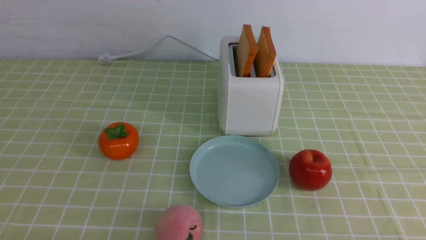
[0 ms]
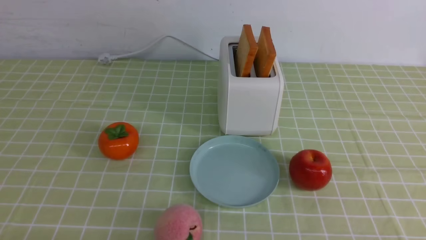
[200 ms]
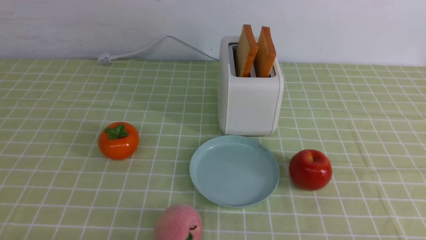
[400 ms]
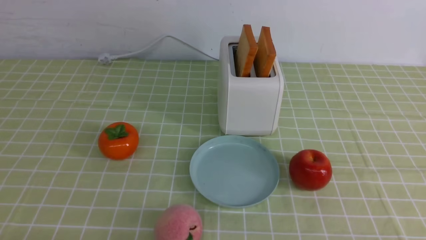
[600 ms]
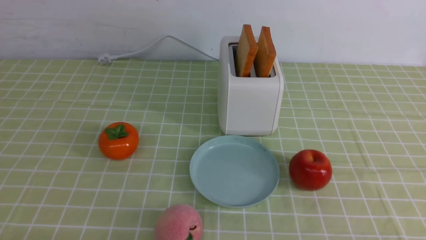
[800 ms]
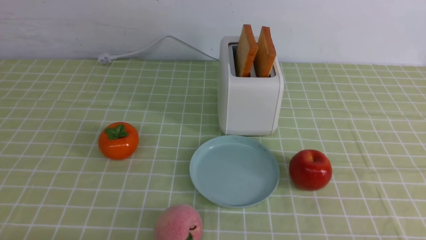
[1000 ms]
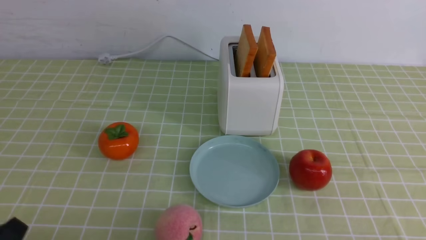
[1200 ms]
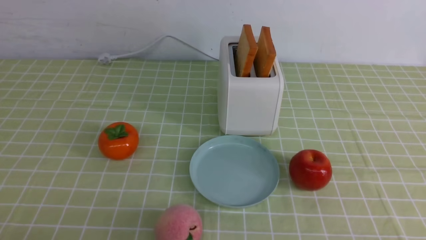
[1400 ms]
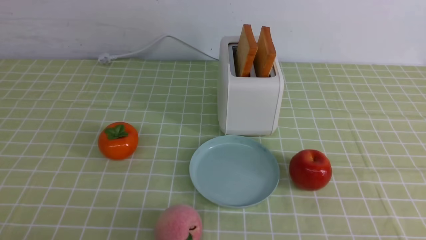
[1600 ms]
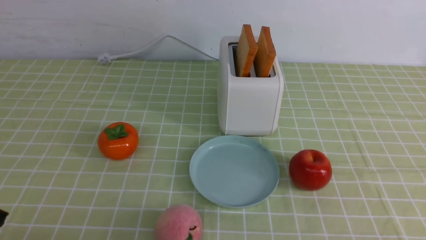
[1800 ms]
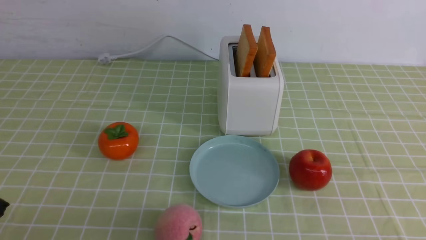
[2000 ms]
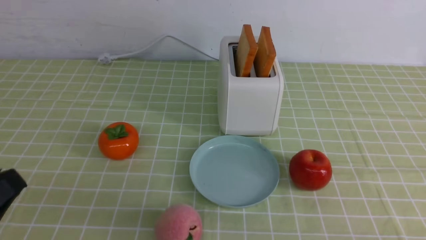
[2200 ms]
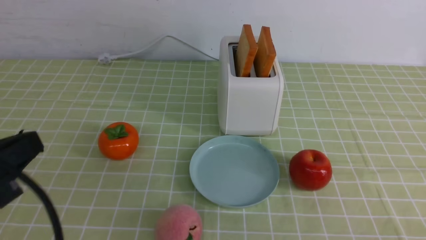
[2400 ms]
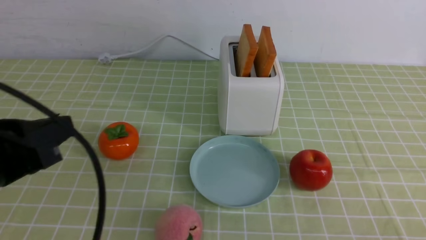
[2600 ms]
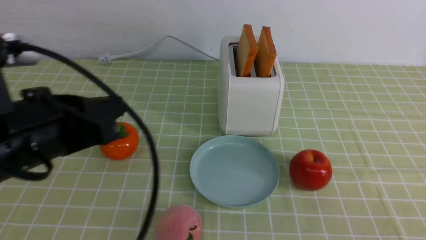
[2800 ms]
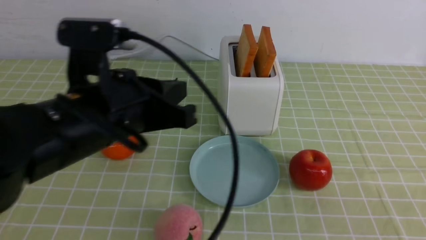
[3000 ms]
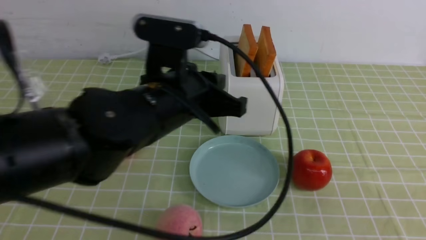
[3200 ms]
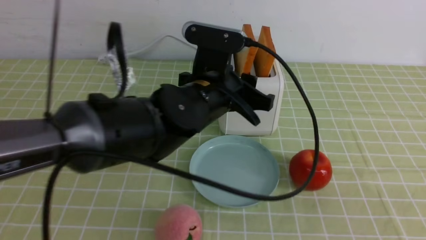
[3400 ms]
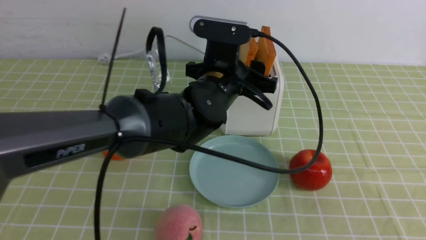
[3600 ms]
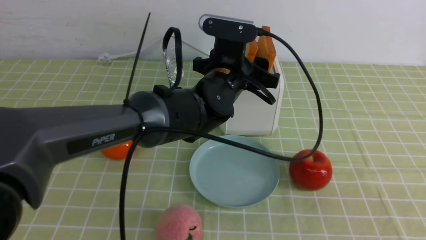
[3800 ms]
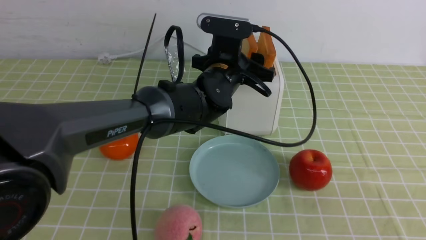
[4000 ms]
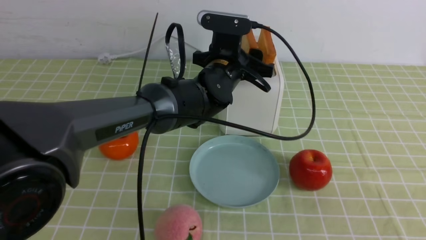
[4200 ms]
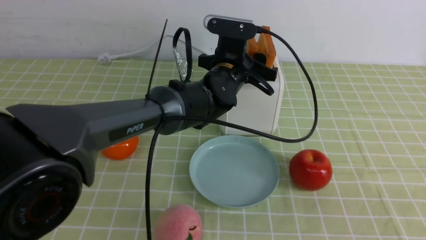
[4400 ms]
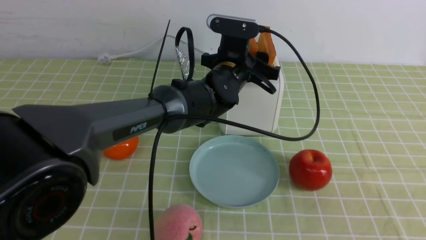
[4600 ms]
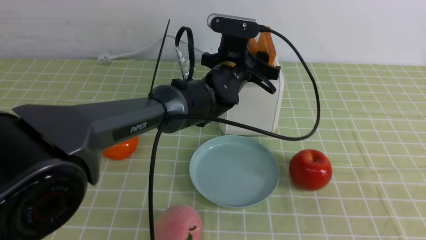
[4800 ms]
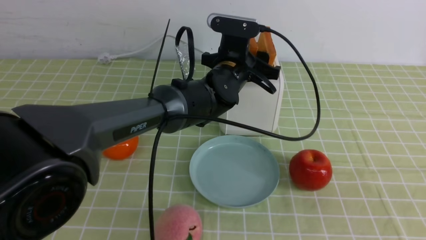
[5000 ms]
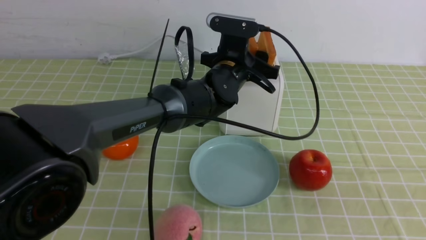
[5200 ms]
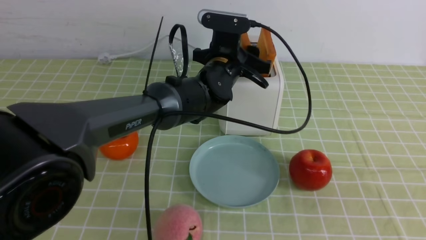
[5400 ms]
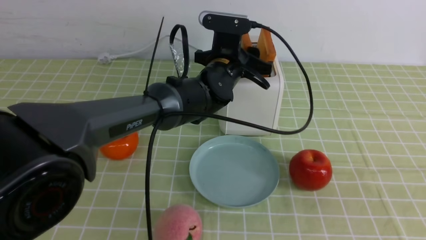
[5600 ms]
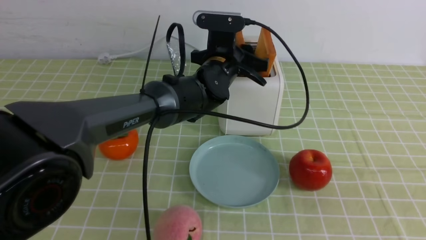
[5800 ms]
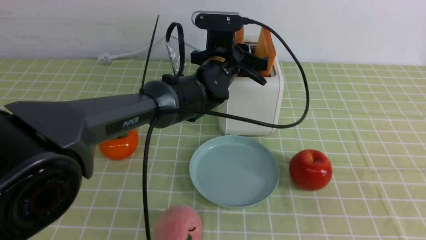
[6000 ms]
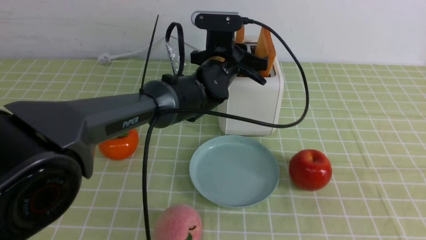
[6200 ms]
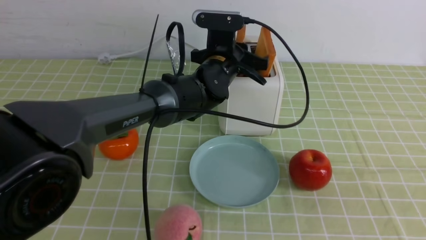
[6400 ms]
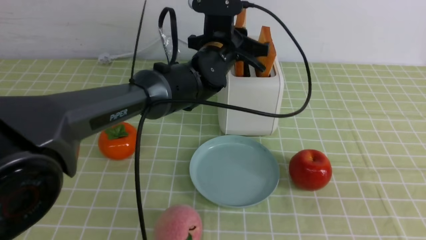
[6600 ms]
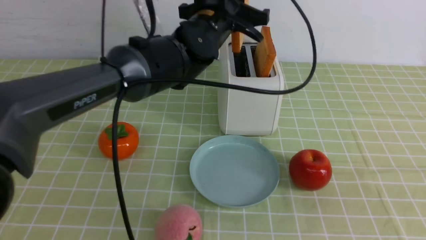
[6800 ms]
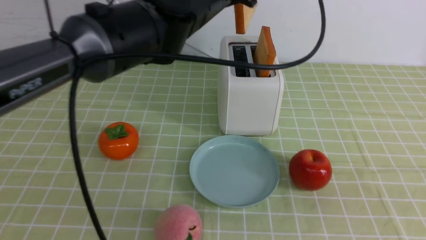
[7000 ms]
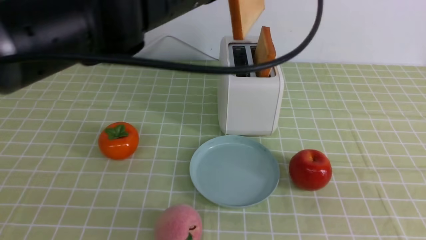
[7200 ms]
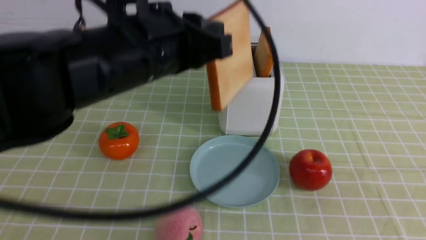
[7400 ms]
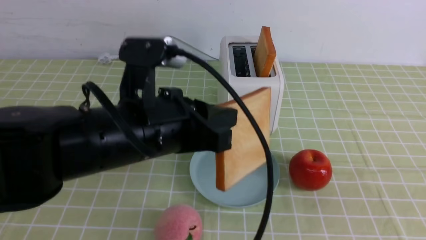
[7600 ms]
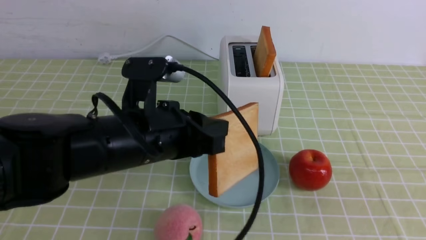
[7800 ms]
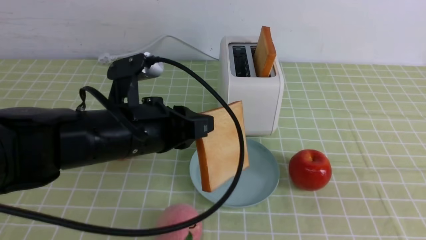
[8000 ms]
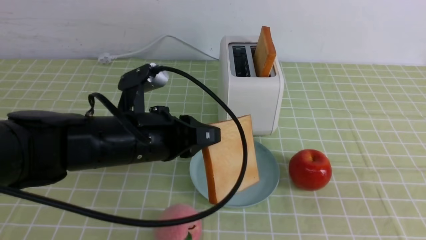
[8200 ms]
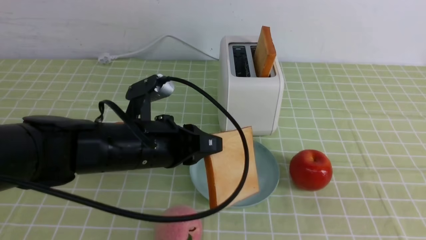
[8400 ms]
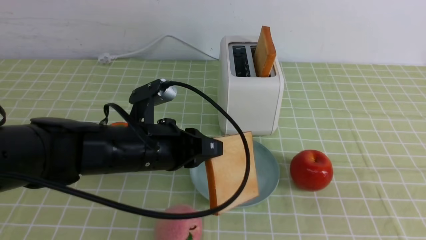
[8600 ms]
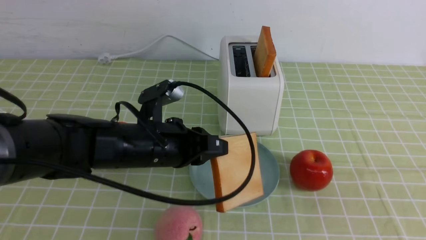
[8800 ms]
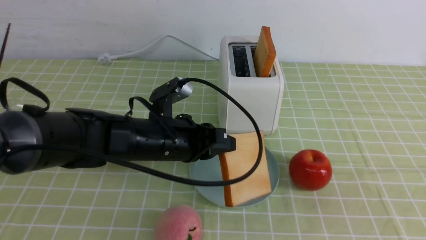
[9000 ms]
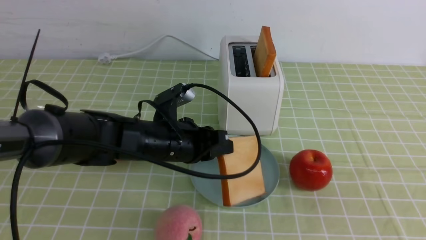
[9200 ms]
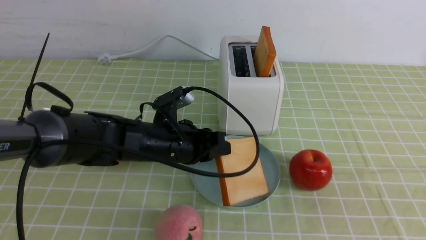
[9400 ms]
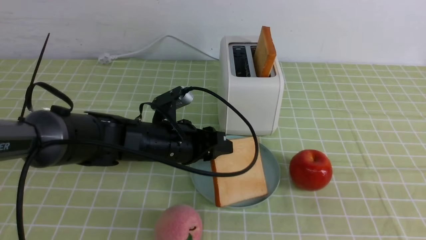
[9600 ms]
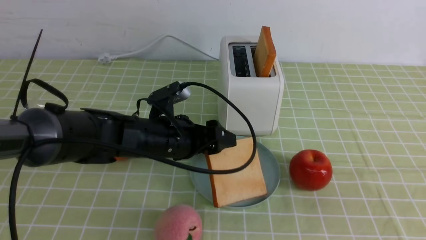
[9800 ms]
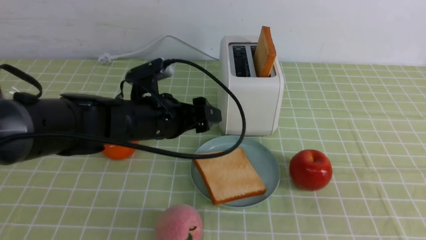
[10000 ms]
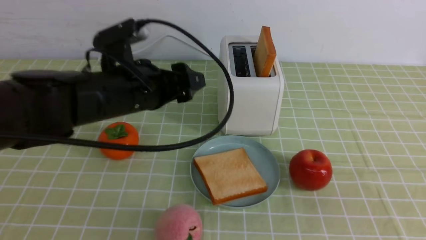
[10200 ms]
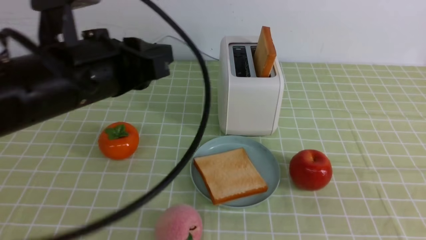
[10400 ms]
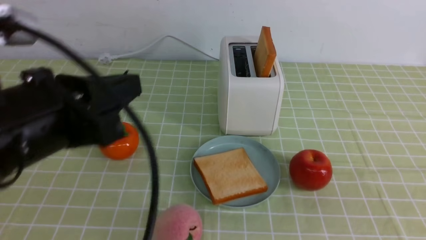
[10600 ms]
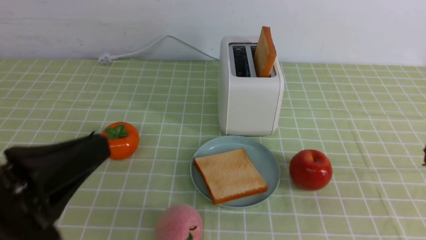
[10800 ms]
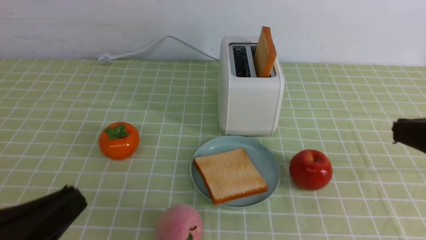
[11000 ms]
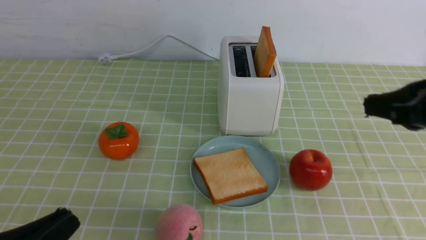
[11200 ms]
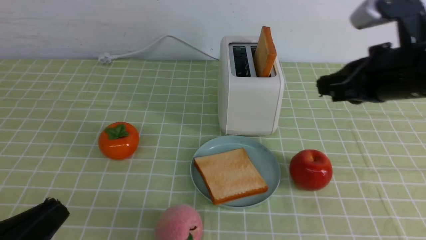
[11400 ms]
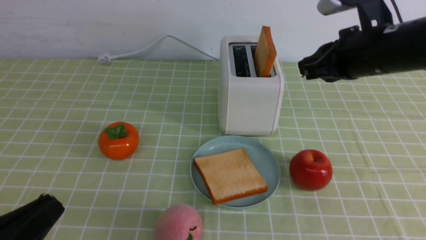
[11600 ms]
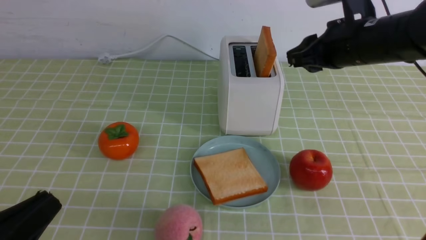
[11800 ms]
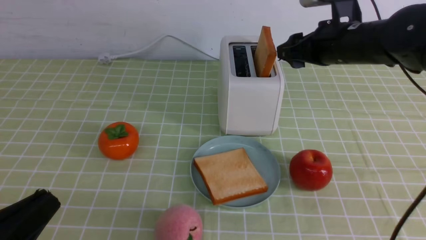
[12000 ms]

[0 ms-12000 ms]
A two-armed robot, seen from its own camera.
Task of the whole recording: take toasted bread from bread machine on green coffee tablecloth place on plate.
Step, 0 ms to 6800 ms: use the left arm to take out a slice of bread.
Step, 7000 ms to 10000 ms: use the left arm to put a slice of bread into the empty plate.
1600 ms to 3000 ms: The right gripper is displaced upward by approximately 10 cm, while the left gripper moves forward, to the right and upward, about 25 cm.
3000 ms to 4400 ms: The left gripper goes roughly 25 cm forward and to the right, and opens.
4400 ms to 6000 ms: The left gripper closes.
6000 ms to 7600 ms: The left gripper travels backward and to the left by about 25 cm.
7600 ms to 9000 ms: The left gripper heads downward and forward, covering some 10 cm.
9000 ms to 10400 ms: The left gripper heads upward, backward and to the left, covering roughly 15 cm, and opens, then closes again.
10400 ms to 12000 ms: The right gripper heads forward, covering roughly 35 cm, and opens up; the left gripper heads backward, downward and to the left, covering some 20 cm.

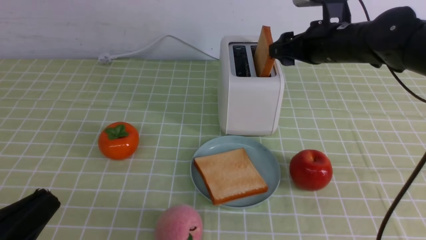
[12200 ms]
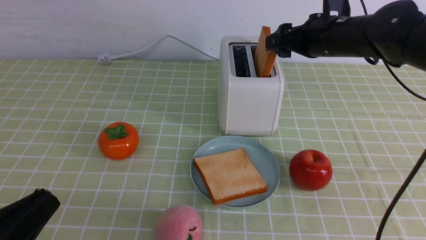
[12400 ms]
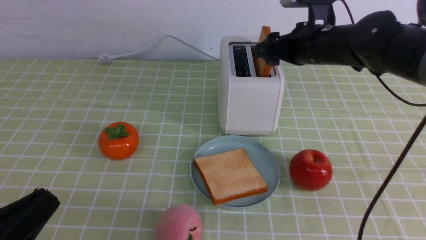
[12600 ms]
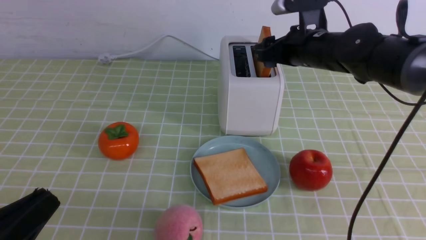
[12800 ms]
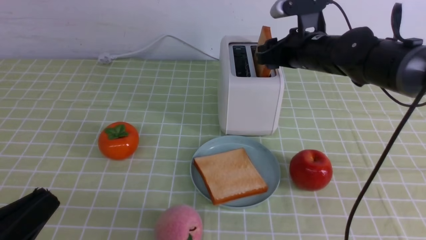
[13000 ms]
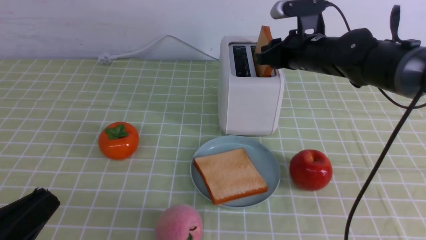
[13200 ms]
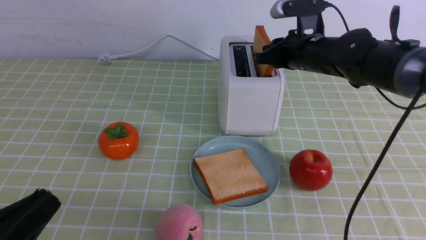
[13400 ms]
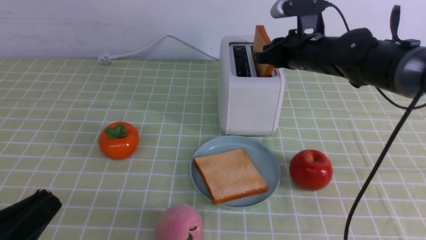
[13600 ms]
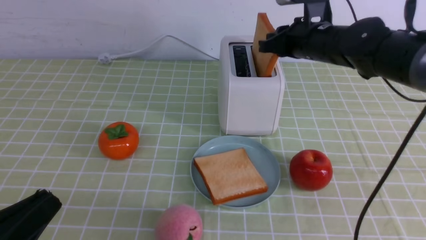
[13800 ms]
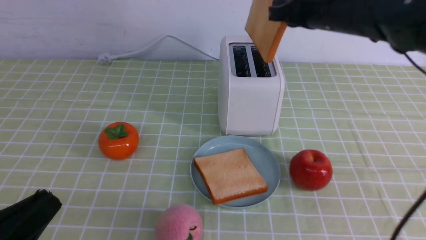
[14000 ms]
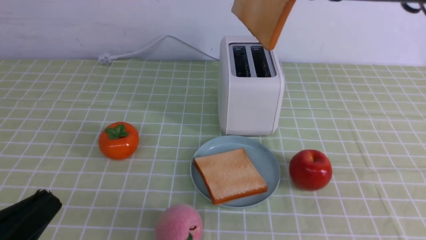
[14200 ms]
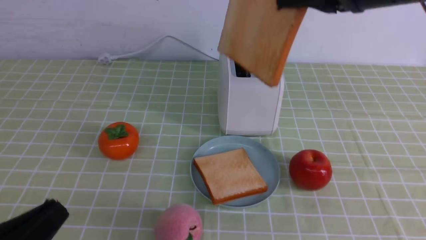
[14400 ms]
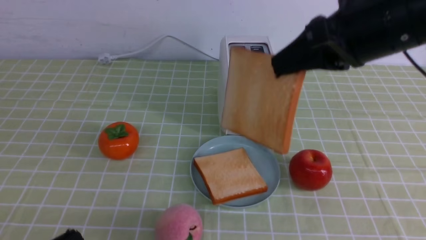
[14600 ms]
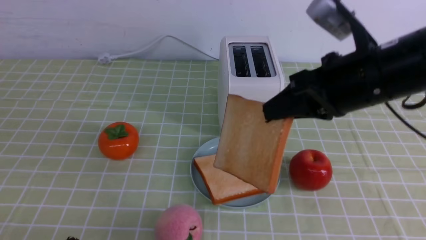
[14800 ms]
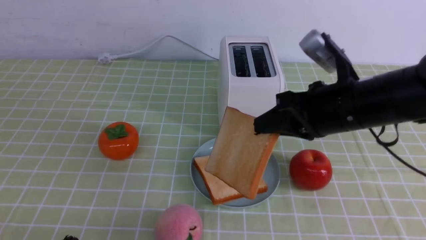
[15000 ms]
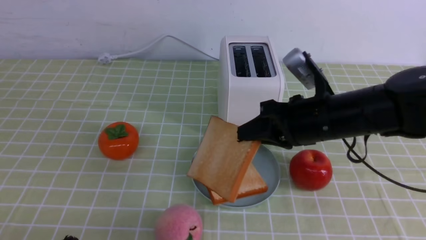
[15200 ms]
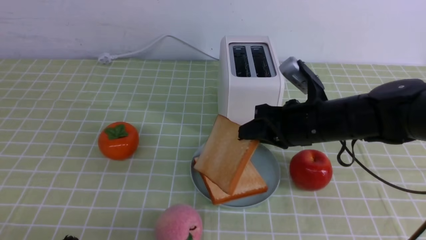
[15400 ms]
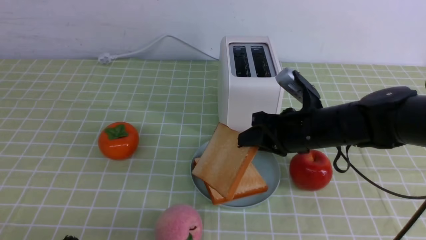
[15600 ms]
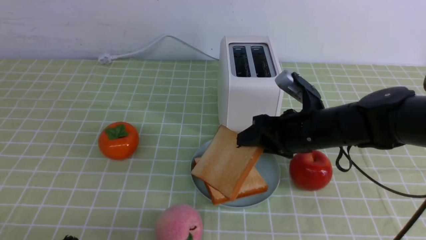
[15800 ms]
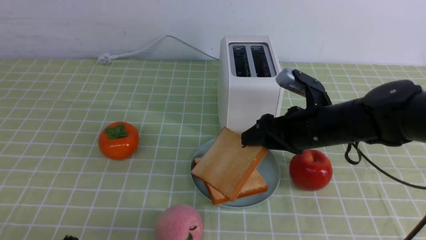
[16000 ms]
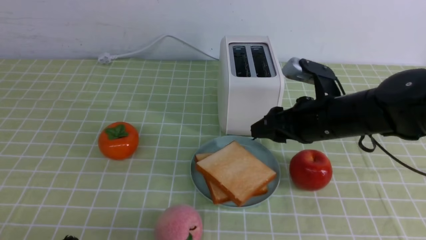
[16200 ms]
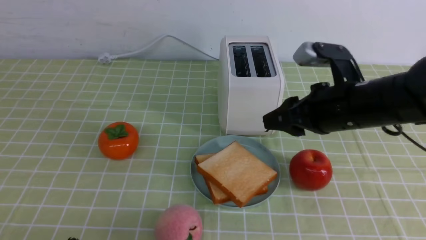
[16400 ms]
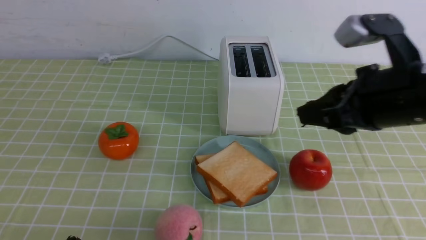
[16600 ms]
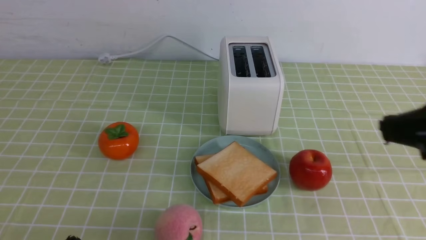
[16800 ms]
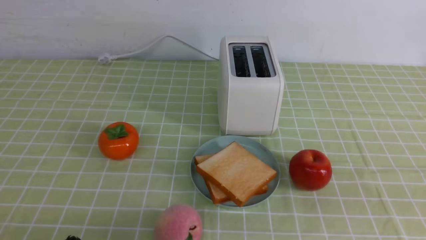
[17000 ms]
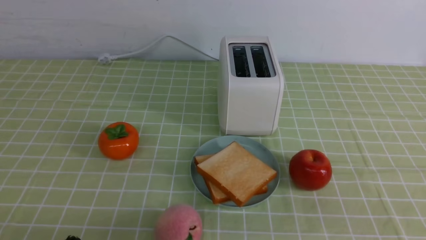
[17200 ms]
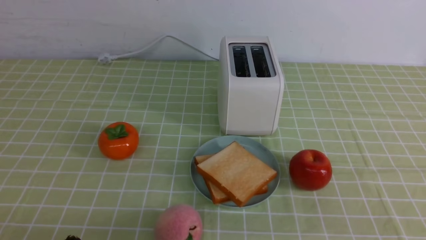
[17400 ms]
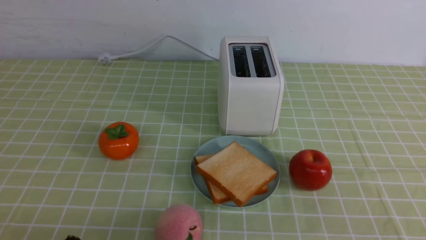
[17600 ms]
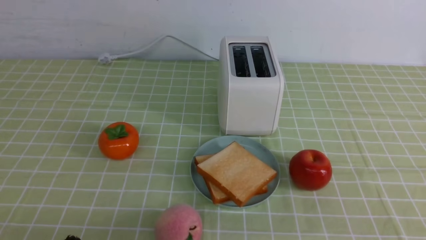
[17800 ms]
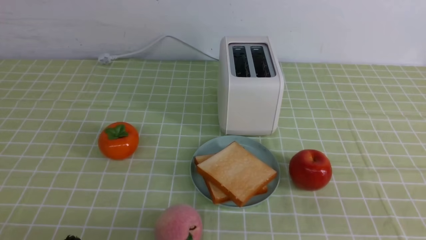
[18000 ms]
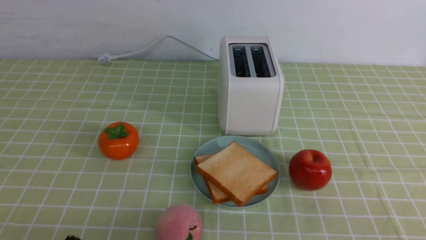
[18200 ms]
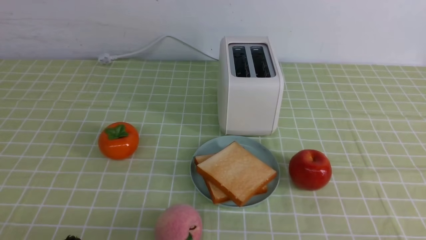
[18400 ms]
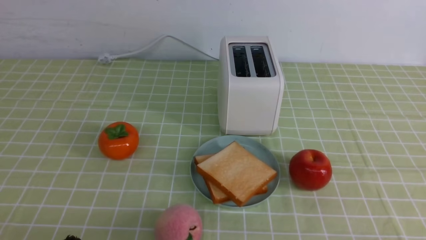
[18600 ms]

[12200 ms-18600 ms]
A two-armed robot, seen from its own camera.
Task of the whole recording: take toasted bread from bread machine on green coffee tablecloth place on plate.
Step, 14200 ms to 16200 ms: use the right arm to put a slice of bread into the plate.
12200 ms to 13800 ms: The right gripper closes its fingers.
13800 ms to 15400 ms: The left gripper shifts roughly 5 cm downward, while the right gripper shifts about 15 cm backward and downward.
15400 ms to 17000 ms: The right gripper is displaced backward, upward and to the right by approximately 30 cm, and opens and closes again.
